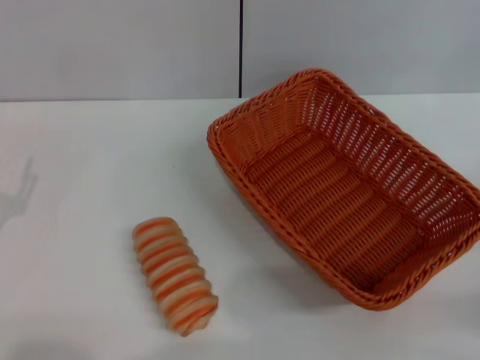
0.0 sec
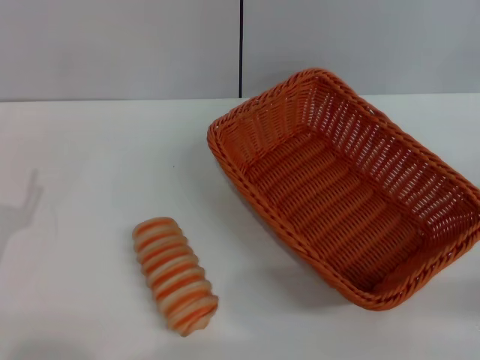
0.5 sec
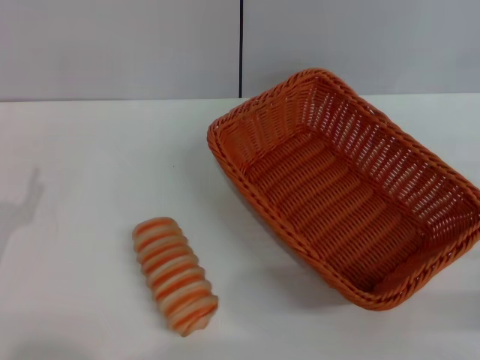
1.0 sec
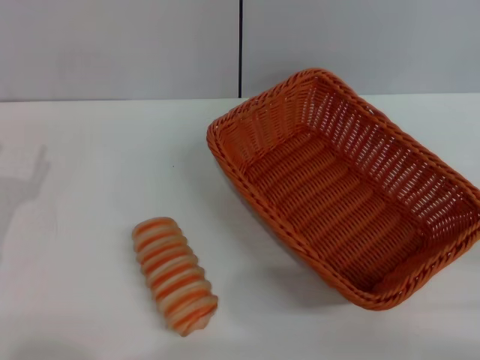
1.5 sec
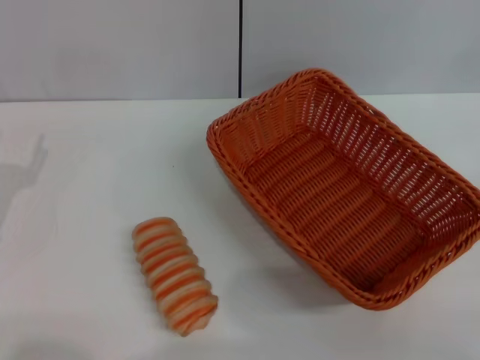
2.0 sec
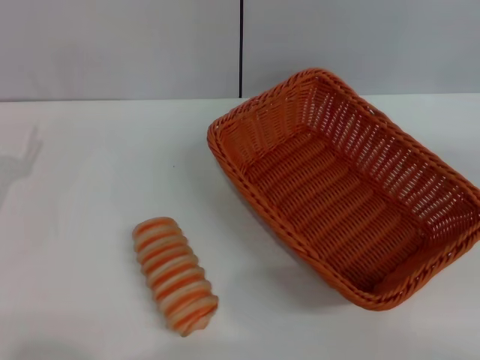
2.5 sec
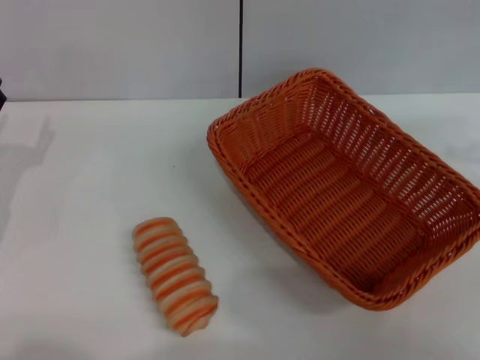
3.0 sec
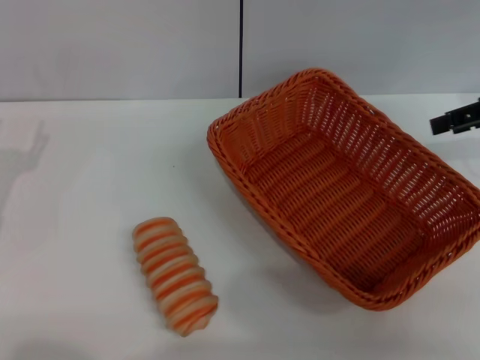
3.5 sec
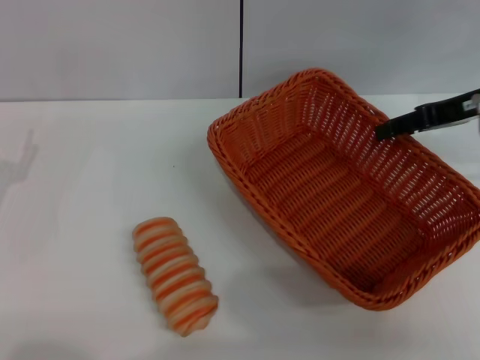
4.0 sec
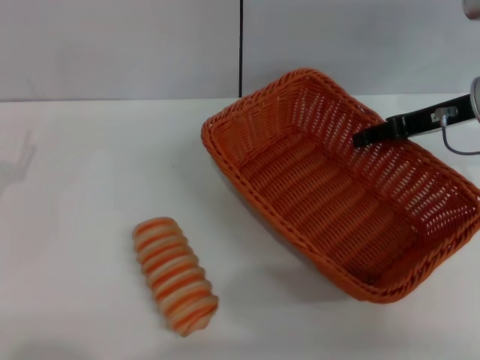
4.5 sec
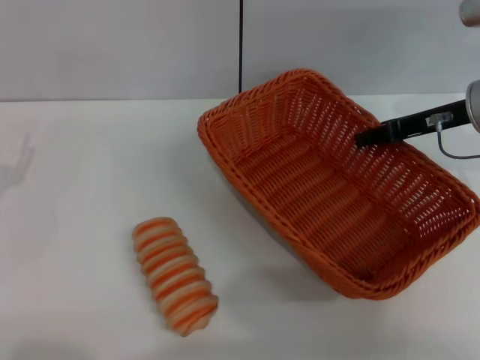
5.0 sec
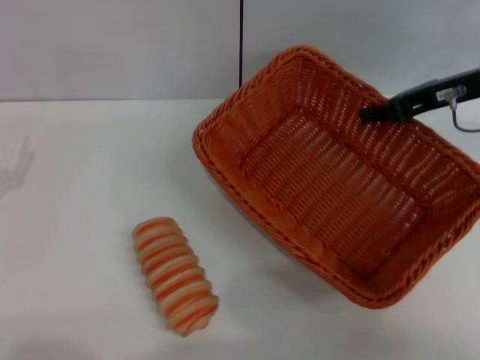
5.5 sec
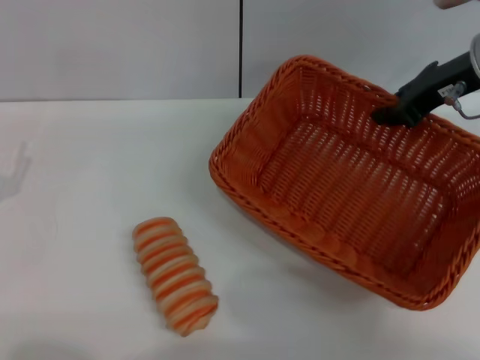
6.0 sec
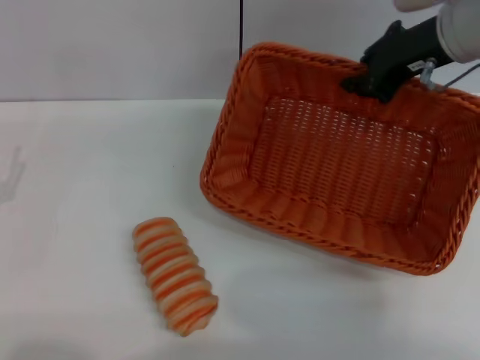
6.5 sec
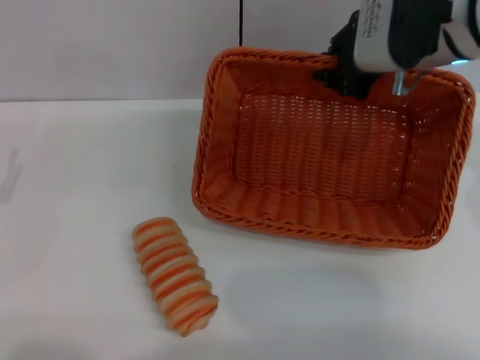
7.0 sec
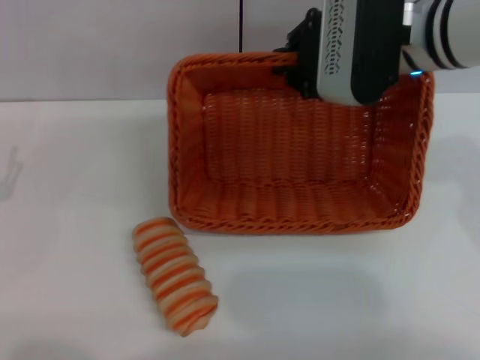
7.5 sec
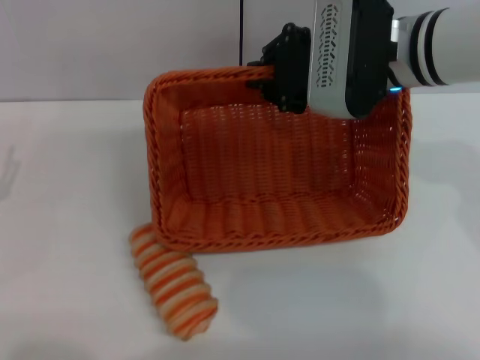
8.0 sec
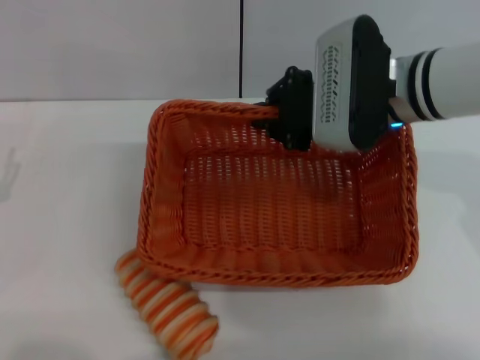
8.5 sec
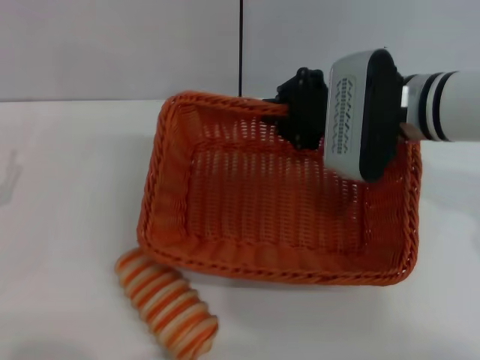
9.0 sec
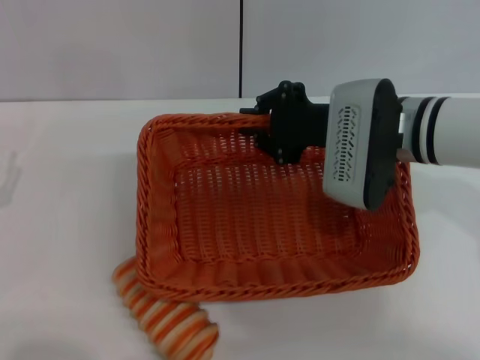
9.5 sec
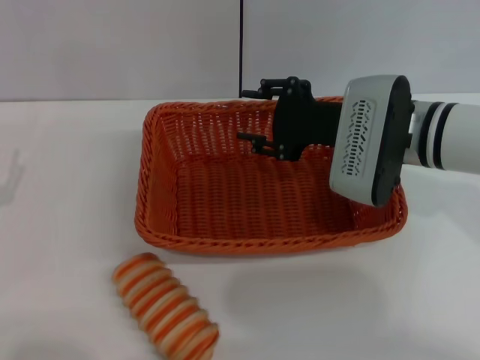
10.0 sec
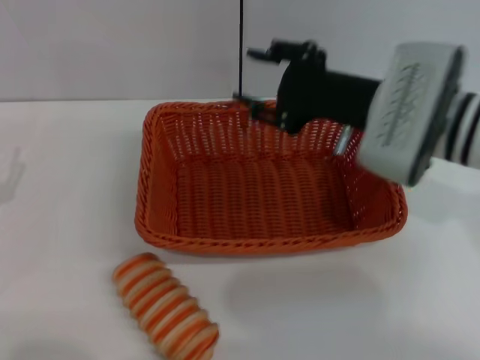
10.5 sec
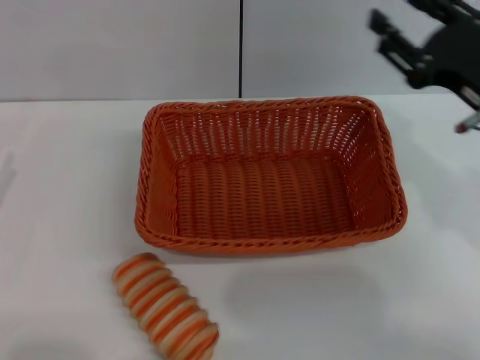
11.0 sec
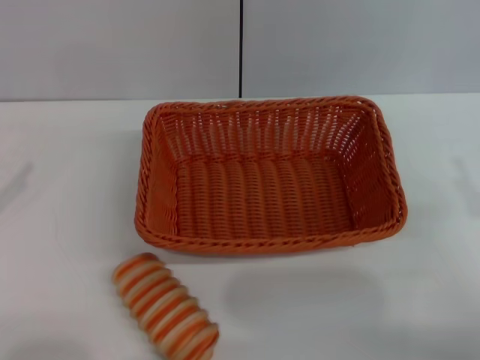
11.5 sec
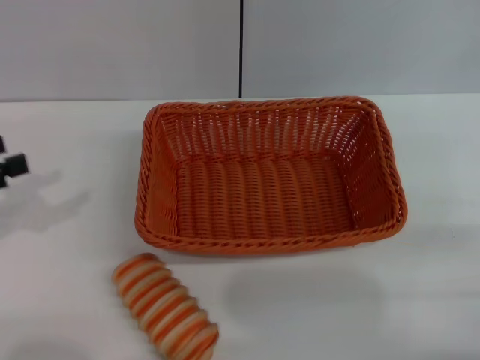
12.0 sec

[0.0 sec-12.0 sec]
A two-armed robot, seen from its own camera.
Step, 0.0 sec to 6.0 sec: Pick up the light basket with the right gripper.
Step, 6.5 sec to 10.0 sec: Place the light basket in the center of view with the right gripper.
2.0 sec to 4.0 sec: The right gripper goes approximately 30 cm forward and to the left.
4.0 sec to 6.0 sec: The right gripper heads to the left, covering approximately 5 cm, and closes its fingers.
6.0 sec to 8.0 sec: The right gripper is displaced to the left by roughly 10 cm.
8.0 sec to 10.0 sec: The right gripper shifts some 5 cm downward, and opens up.
10.0 sec to 12.0 sec: The right gripper travels to the right and backward by about 30 cm. The left gripper heads upward, covering about 10 cm.

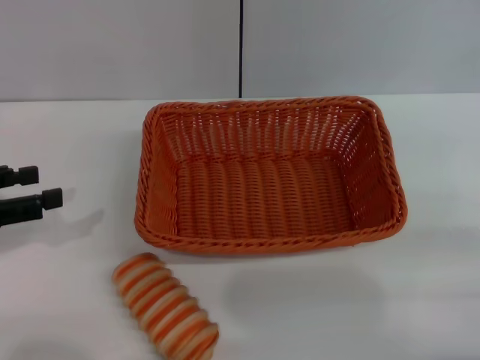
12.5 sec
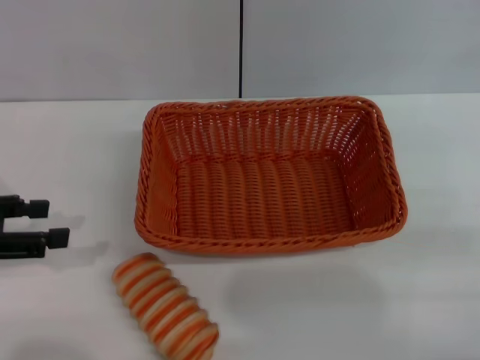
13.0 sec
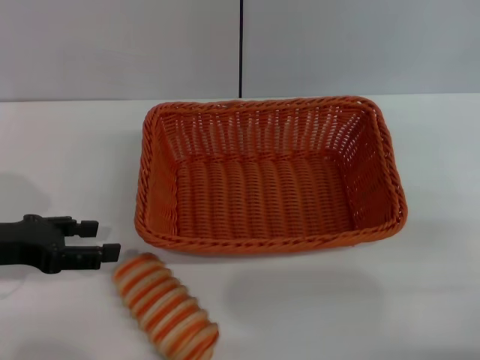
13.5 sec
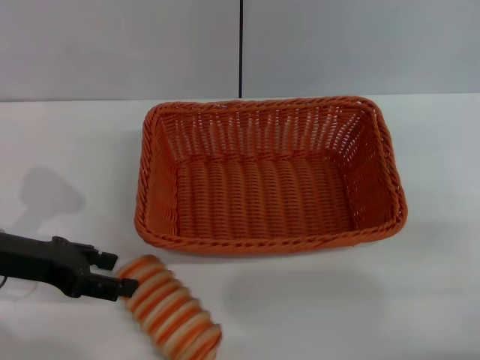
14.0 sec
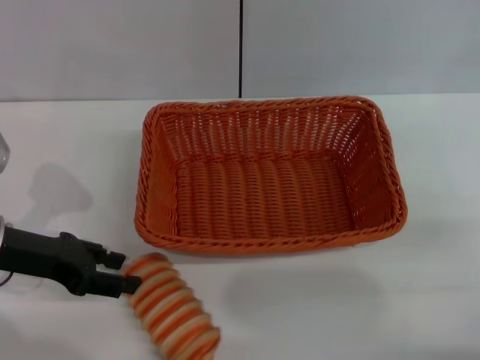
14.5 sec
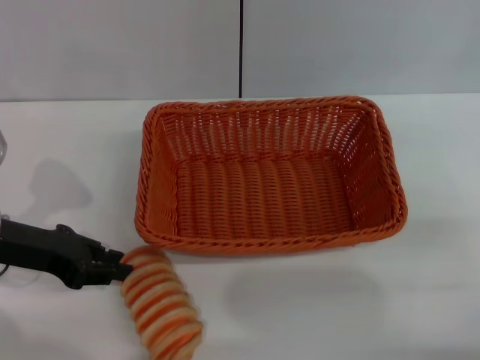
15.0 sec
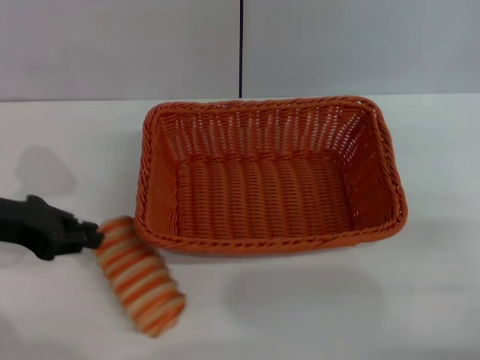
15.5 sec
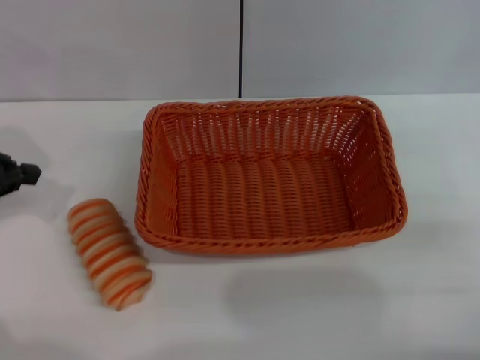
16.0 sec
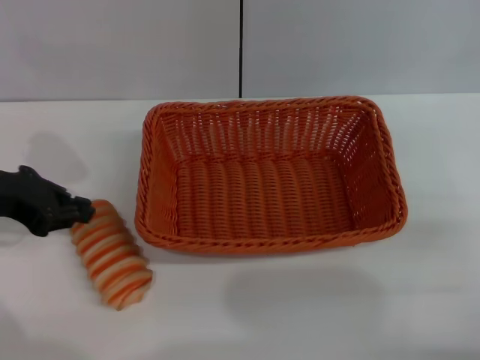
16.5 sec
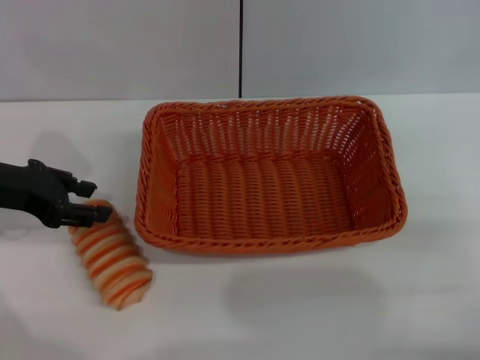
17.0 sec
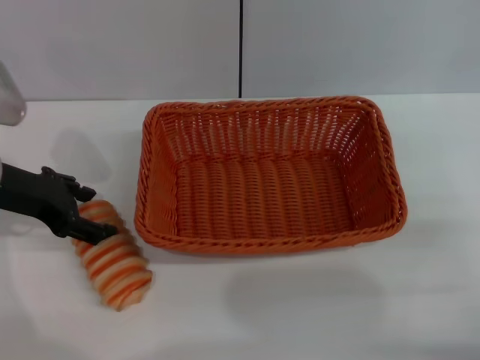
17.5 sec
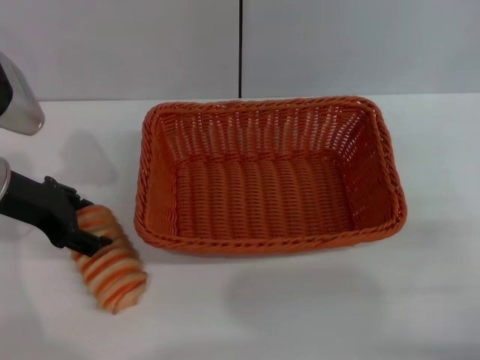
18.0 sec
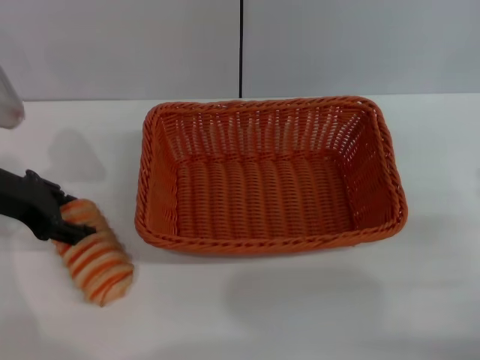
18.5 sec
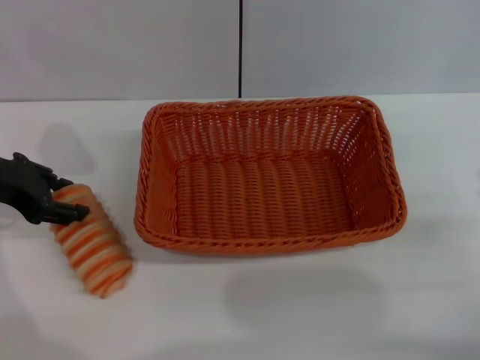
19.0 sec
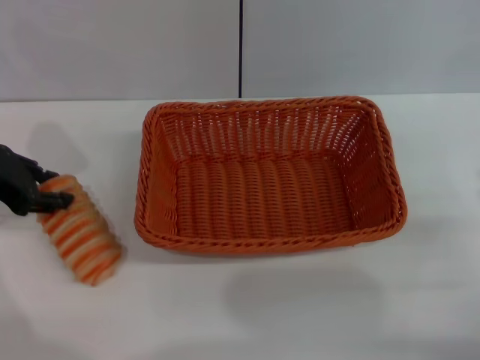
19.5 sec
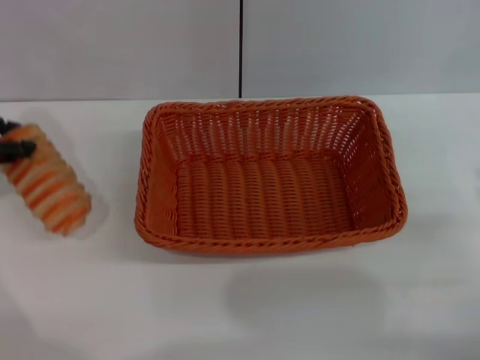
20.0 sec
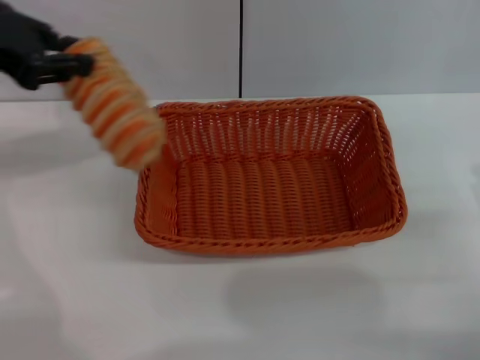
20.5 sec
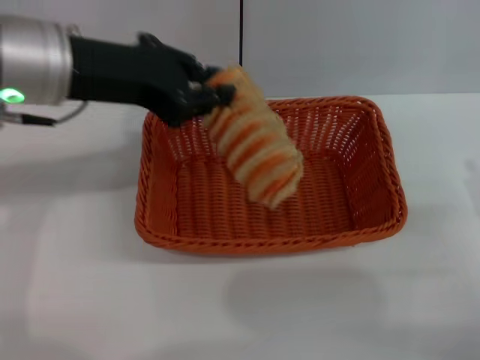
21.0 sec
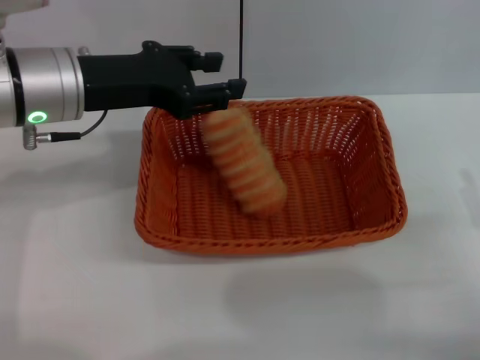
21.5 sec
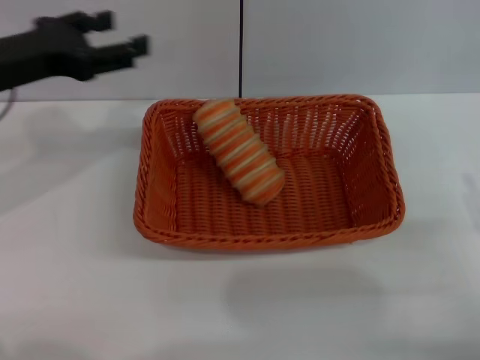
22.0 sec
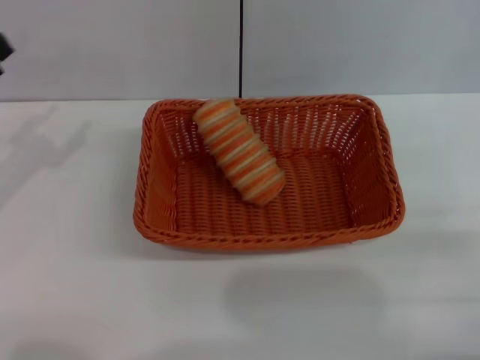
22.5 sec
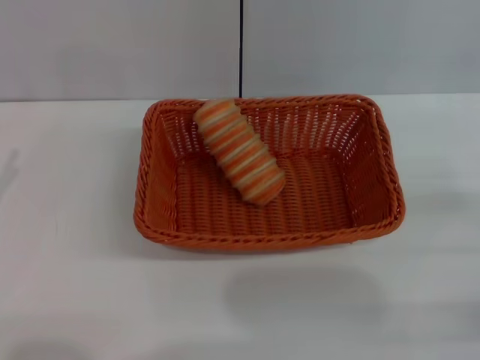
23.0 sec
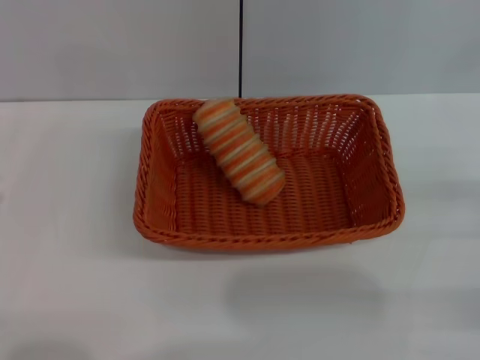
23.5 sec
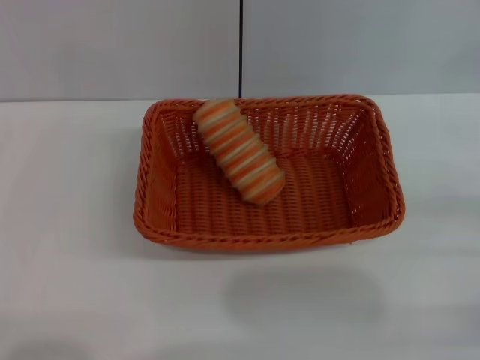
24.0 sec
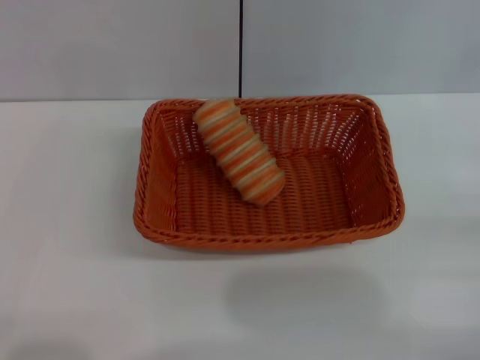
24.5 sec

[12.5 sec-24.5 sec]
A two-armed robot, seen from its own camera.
Step, 12.5 sec to 20.0 sec: Pick up the long bread with the left gripper.
Step, 20.5 sec to 22.0 sec: Place the long bread into the light basket with the left gripper.
12.5 sec to 14.5 sec: The left gripper shifts approximately 10 cm to the right.
14.5 sec to 16.5 sec: The left gripper heads upward, covering about 5 cm, and closes its fingers.
16.5 sec to 18.5 sec: The left gripper opens up.
18.5 sec to 20.5 sec: The left gripper travels upward by about 15 cm, and closes.
20.5 sec to 22.5 sec: The left gripper moves downward, to the left and backward, about 20 cm, and opens up.

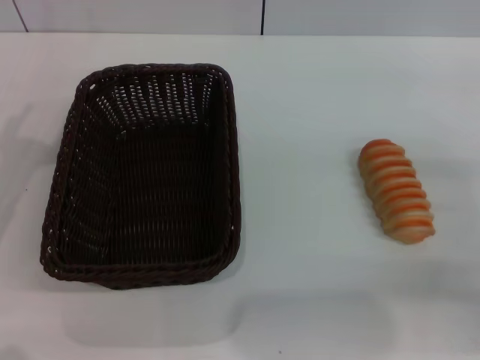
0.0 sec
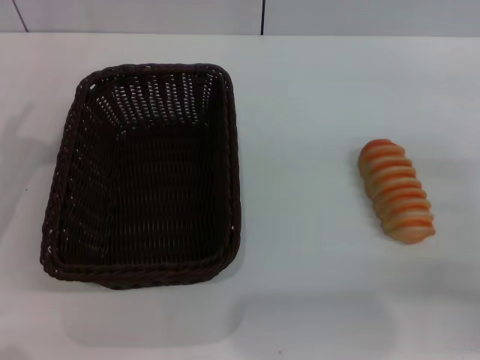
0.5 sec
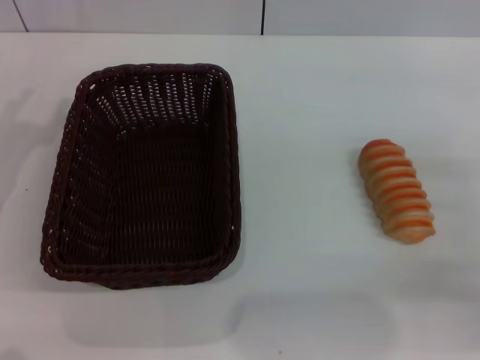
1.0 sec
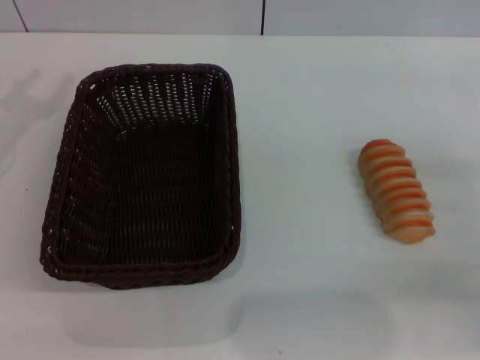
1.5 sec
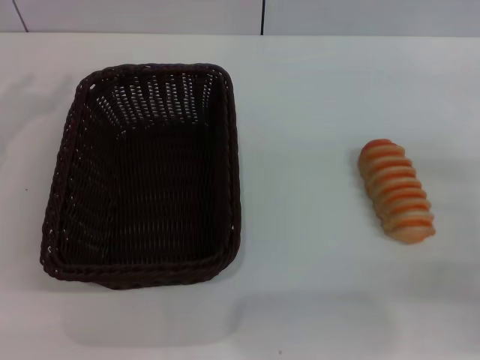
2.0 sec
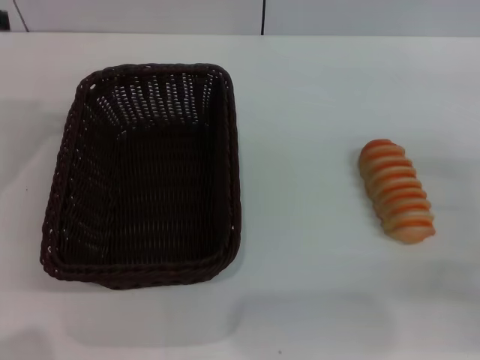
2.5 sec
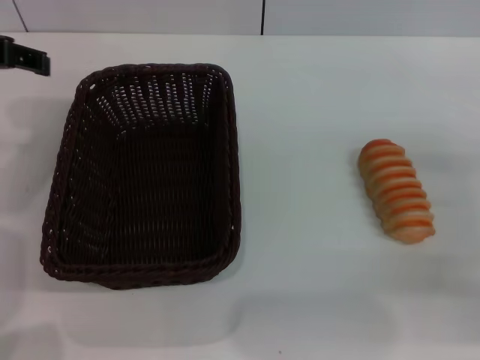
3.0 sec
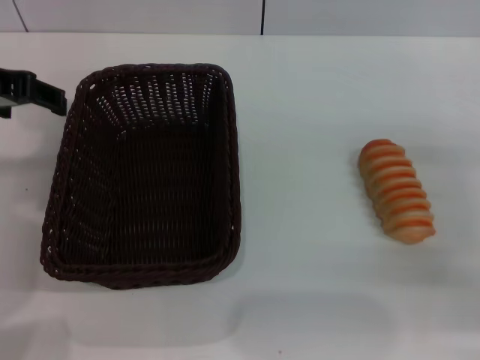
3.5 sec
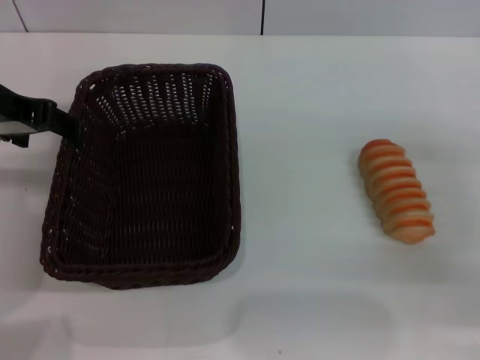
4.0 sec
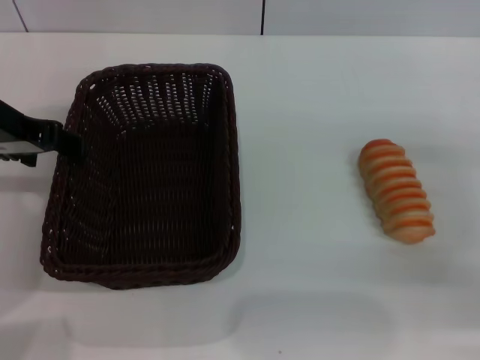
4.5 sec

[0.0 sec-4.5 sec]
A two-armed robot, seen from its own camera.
2.0 sec to 4.5 sec: The left gripper shifts some 10 cm to the right.
